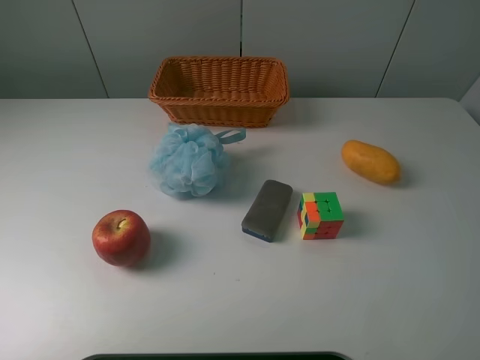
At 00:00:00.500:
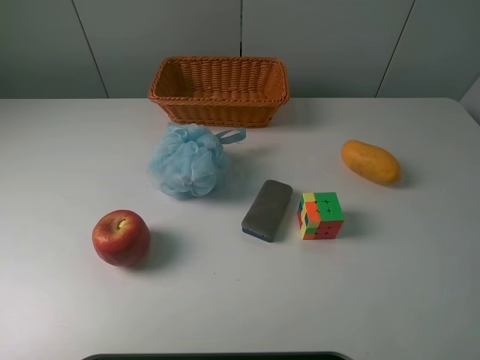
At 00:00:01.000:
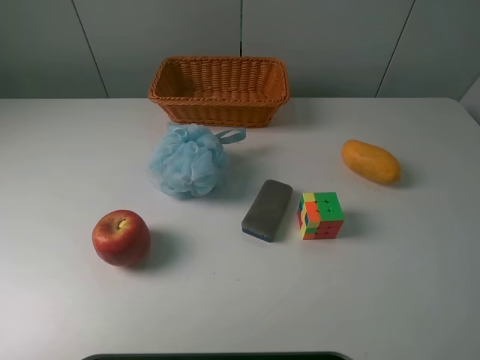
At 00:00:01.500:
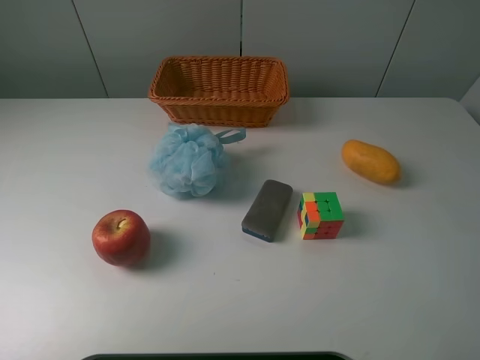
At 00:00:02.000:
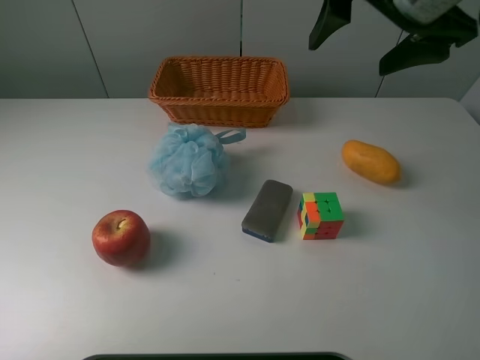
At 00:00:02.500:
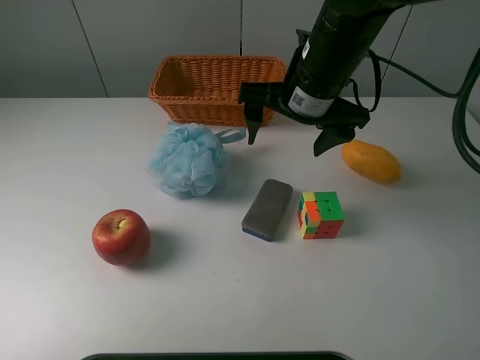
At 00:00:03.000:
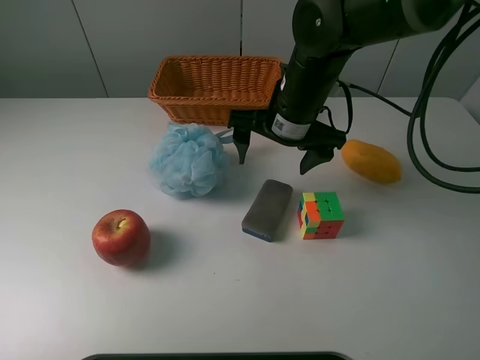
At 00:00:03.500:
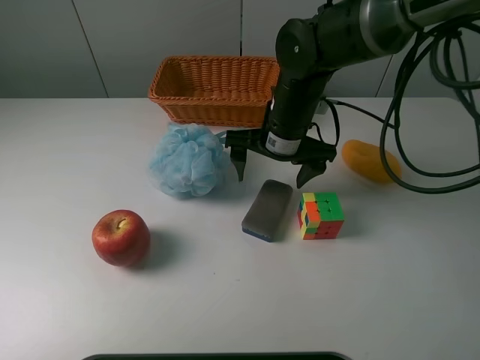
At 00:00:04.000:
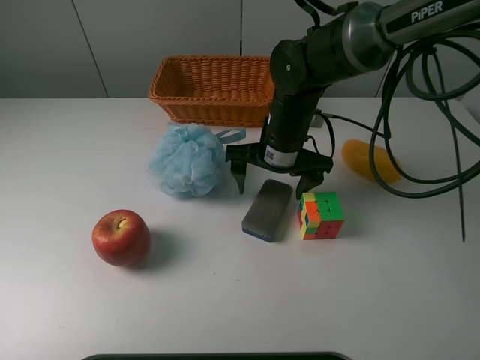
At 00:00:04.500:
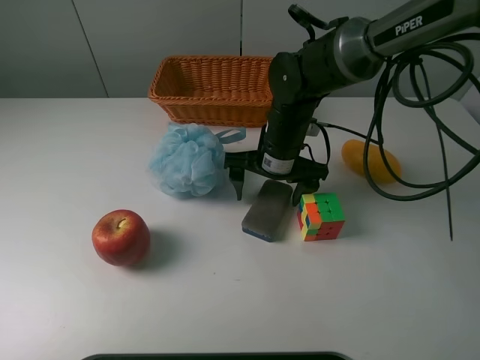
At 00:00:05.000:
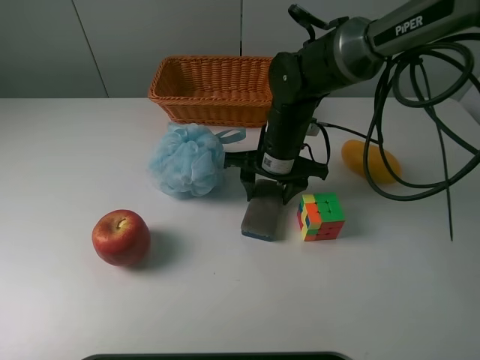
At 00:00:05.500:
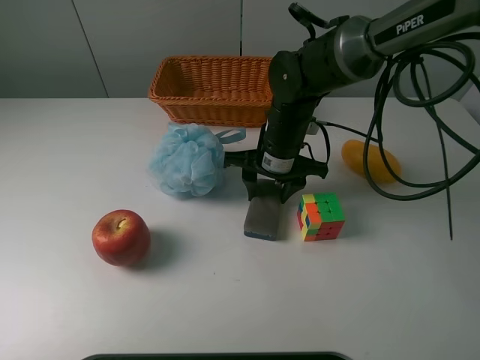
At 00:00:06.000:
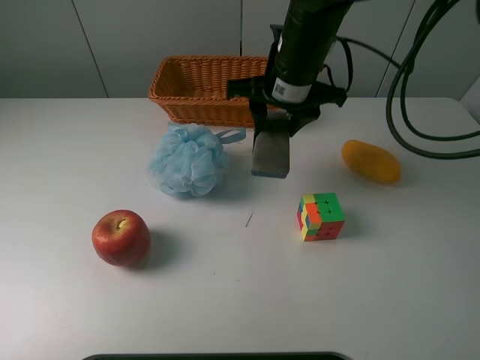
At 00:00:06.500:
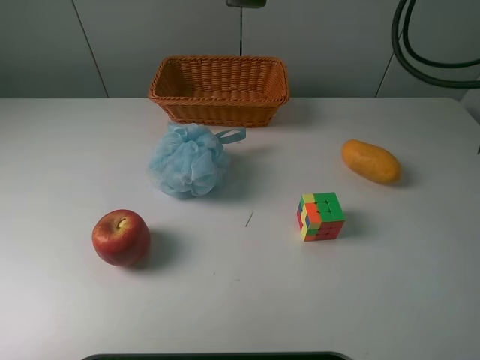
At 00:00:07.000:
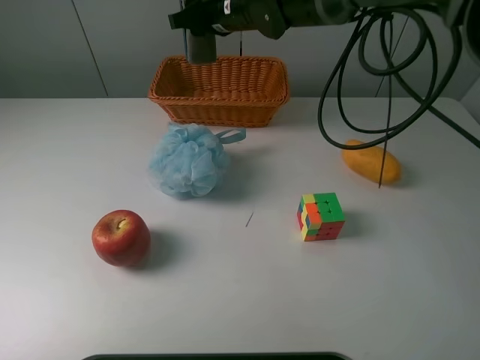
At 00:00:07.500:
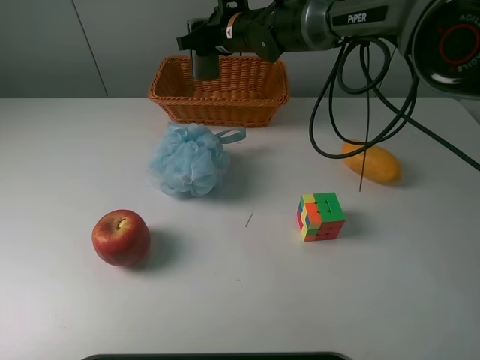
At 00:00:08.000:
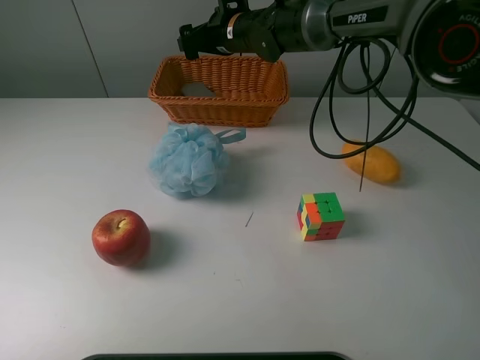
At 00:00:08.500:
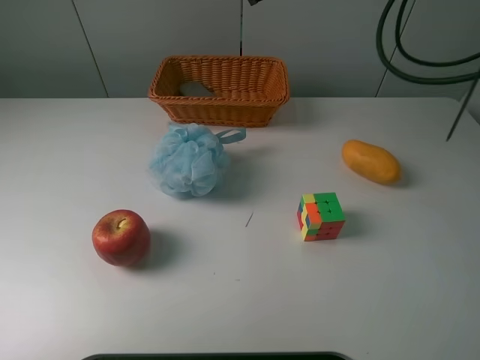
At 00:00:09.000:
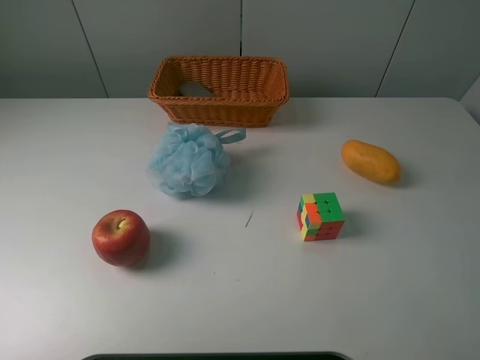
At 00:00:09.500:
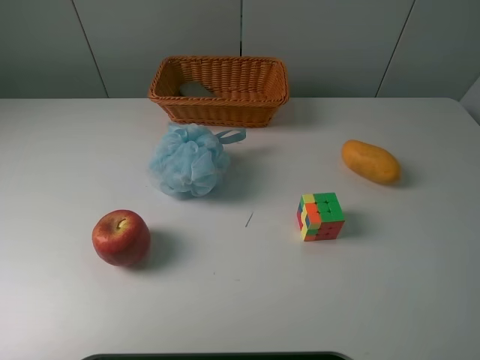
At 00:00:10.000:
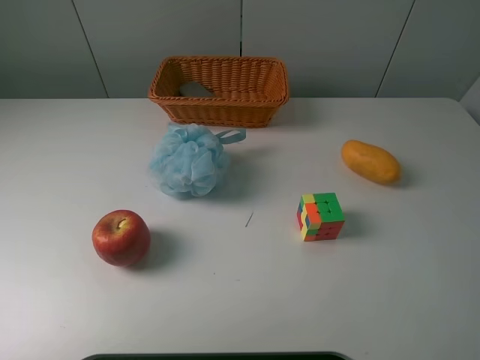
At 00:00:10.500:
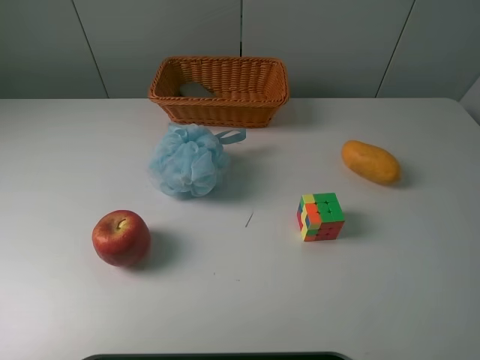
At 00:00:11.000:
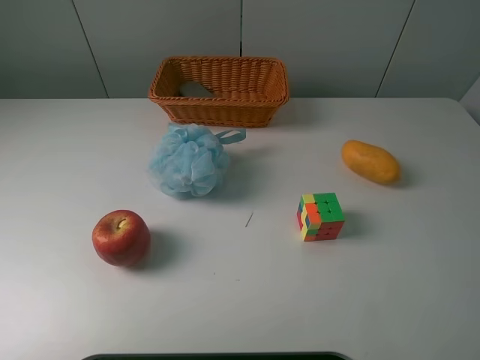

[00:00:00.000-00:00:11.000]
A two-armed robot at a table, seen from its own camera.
Task of the whole recording: use a picker to grab the item closest to the cube and place it in the basket.
Step, 00:00:00.000 to 00:00:05.000: Grasp the blackboard erasure with the right gripper.
Step, 00:00:05.500 to 00:00:08.000: Place the blackboard erasure into the basket with the right gripper.
00:00:00.000 to 00:00:02.000: The right gripper moves forward and to the left, roughly 30 cm.
00:00:02.000 to 00:00:03.500: The right gripper is displaced downward and to the left by roughly 20 cm.
00:00:03.500 to 00:00:05.500: The right gripper closes.
00:00:05.500 to 00:00:07.500: The right gripper heads forward and to the left, covering some 15 cm, and goes upward and returns, about 25 cm each way.
00:00:07.500 to 00:00:09.000: The right gripper travels upward, to the right and backward by some 40 cm, and opens up.
